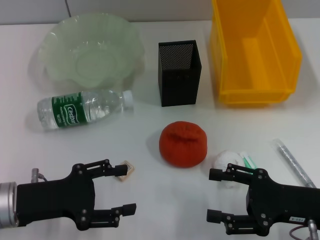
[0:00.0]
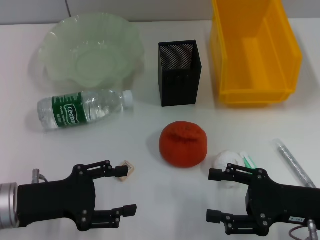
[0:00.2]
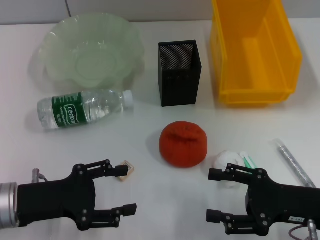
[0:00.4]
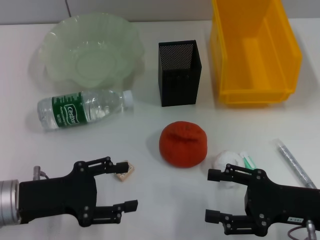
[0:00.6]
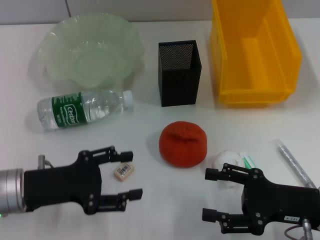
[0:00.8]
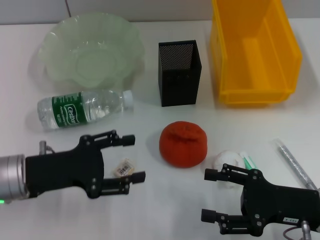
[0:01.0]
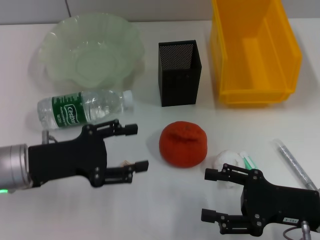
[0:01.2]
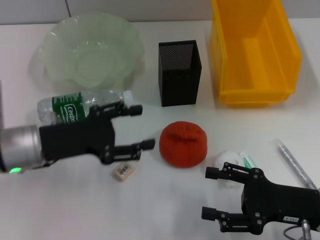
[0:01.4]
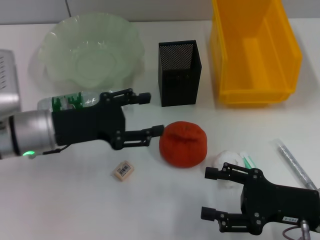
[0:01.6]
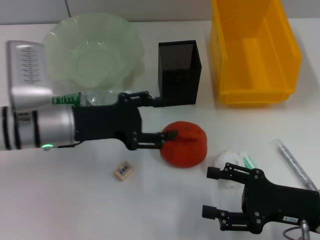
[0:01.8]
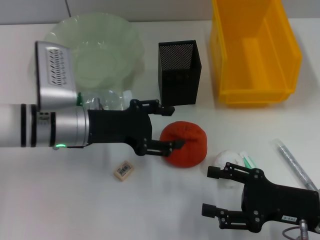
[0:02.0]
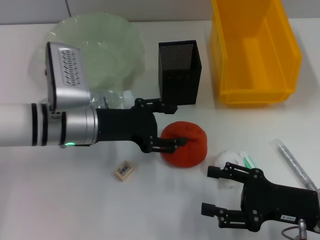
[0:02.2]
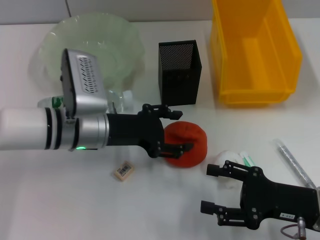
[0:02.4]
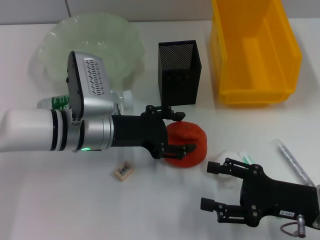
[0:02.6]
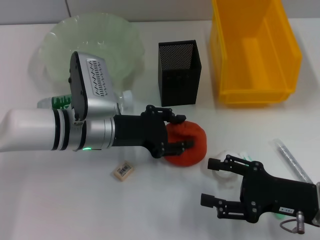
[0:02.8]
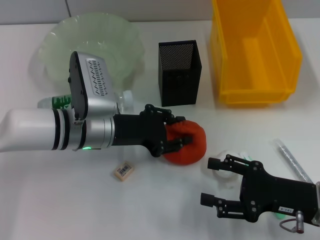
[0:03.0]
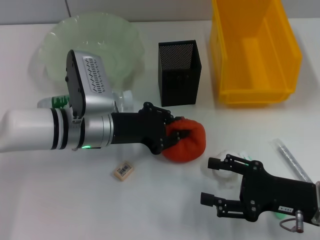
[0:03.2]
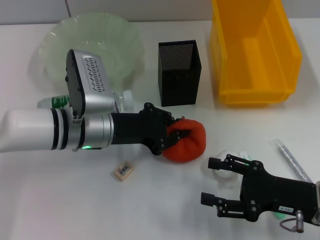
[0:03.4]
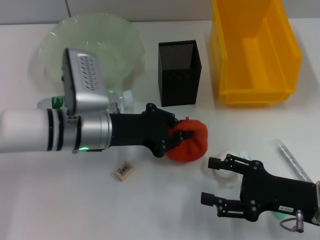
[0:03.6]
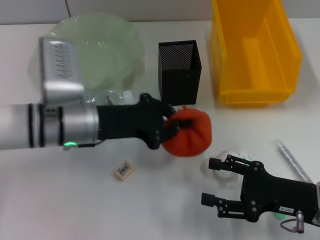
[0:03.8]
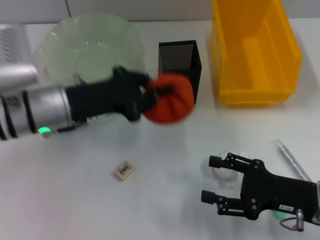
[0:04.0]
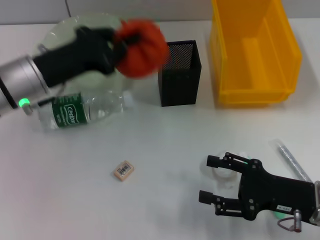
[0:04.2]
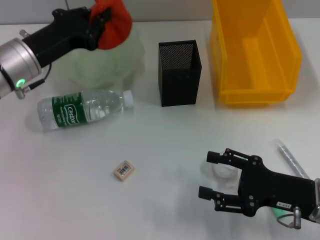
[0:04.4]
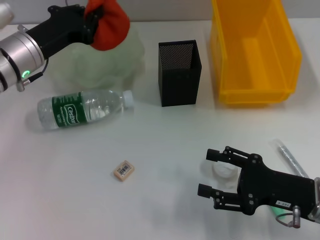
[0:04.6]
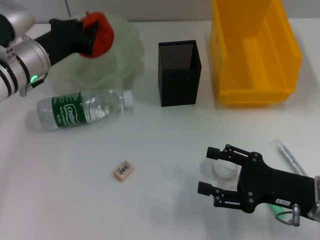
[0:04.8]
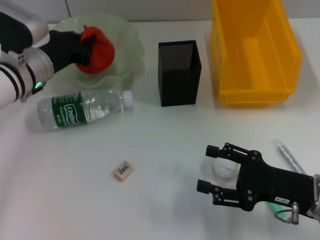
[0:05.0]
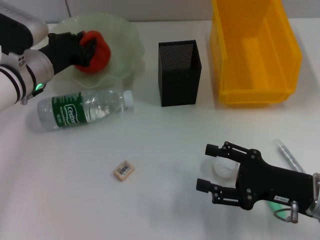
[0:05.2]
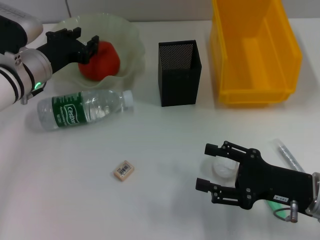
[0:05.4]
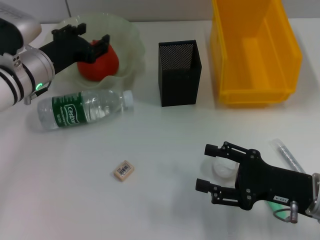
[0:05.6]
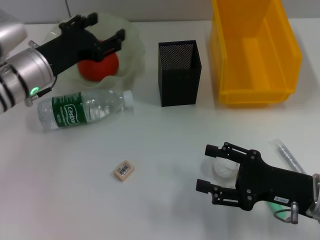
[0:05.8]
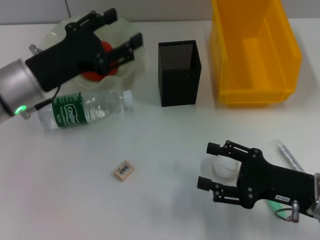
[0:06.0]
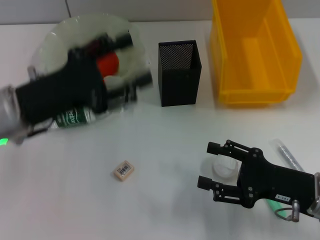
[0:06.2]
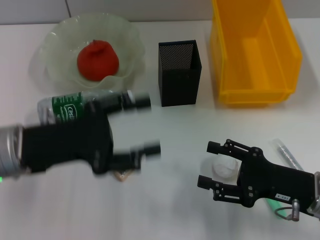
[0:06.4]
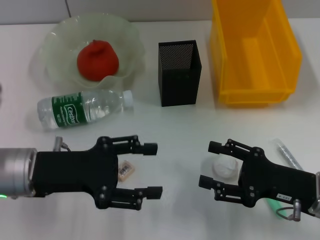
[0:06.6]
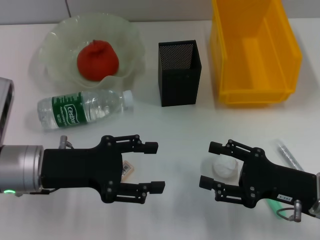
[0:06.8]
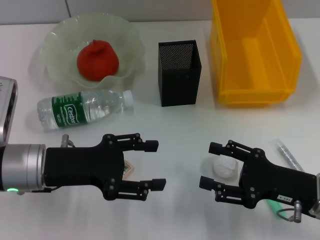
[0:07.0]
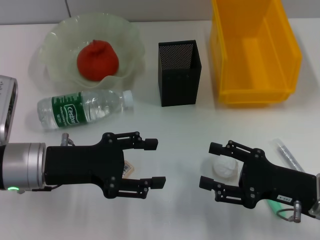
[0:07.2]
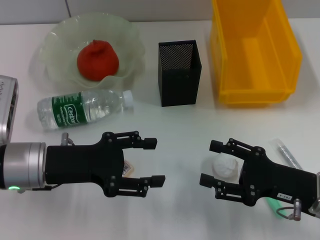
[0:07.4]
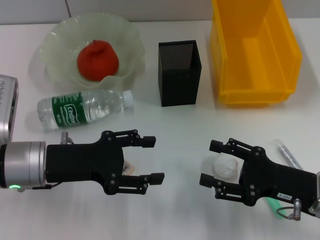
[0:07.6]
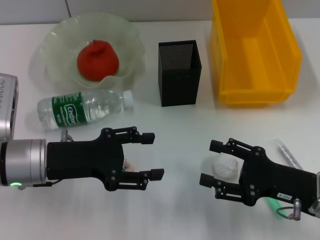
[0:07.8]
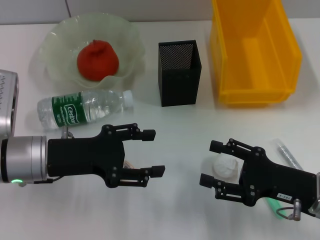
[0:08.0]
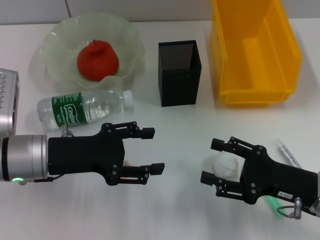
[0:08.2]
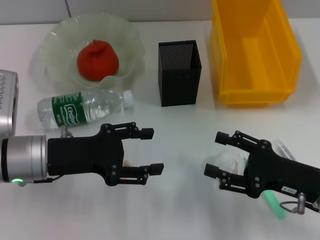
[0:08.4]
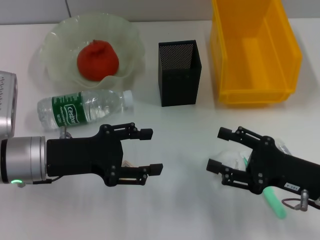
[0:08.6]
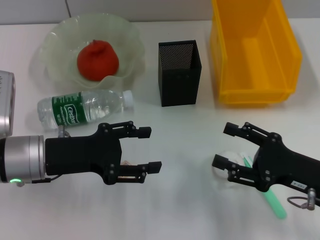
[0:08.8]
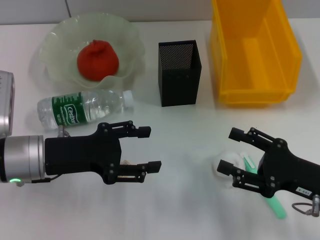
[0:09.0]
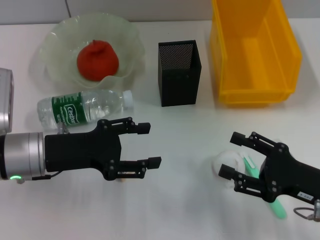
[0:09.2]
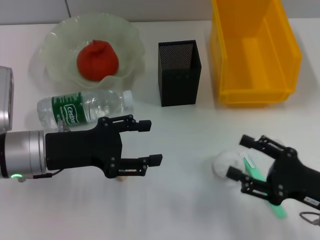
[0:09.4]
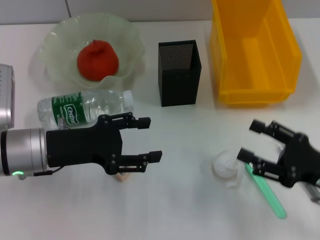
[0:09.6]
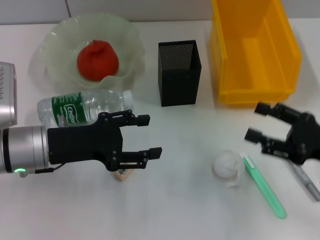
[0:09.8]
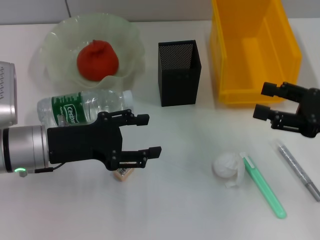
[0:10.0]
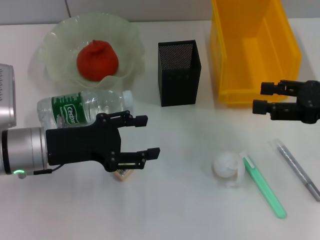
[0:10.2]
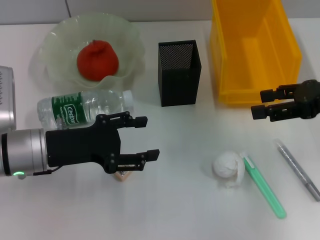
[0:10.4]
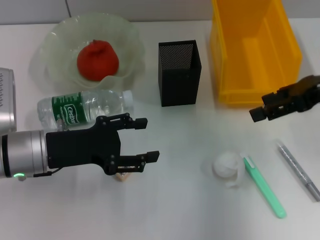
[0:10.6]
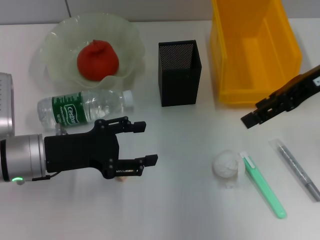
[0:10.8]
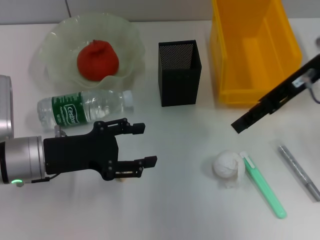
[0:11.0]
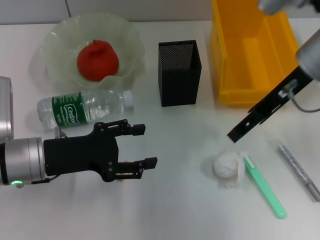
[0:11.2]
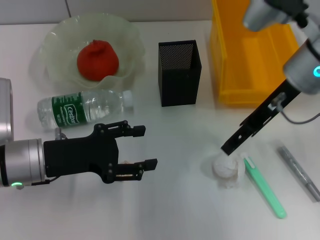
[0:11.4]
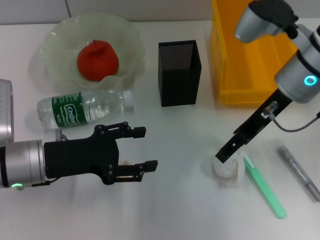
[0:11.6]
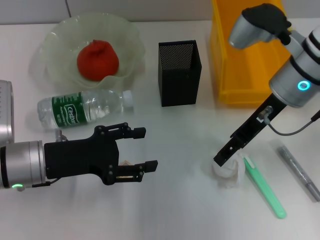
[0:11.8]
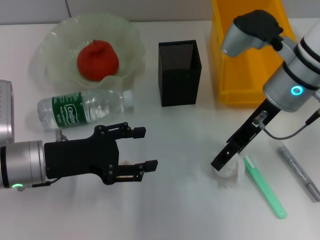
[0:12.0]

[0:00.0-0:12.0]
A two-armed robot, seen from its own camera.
Step, 0:00.0 to 0:03.2: Grab the orange with the left hand.
Step, 0:03.4 to 0:05.4: Place the orange into the fruit bowl with the left hand.
0:00.0 to 0:01.6: The left gripper moves forward, about 10 cm.
0:01.6 to 0:03.0: The left gripper shifts some 5 cm to the right.
0:03.0 to 0:04.4: The left gripper travels to the left and upward by approximately 10 cm, and closes up.
0:04.4 to 0:06.0: The left gripper opens.
0:06.0 to 0:07.6: The left gripper moves backward, about 5 cm.
0:07.6 to 0:09.0: The grippers make only small movements.
0:09.0 to 0:10.4: The right gripper shifts approximately 15 cm upward and forward.
0:10.4 to 0:12.0: The right gripper is displaced to the left by about 15 cm.

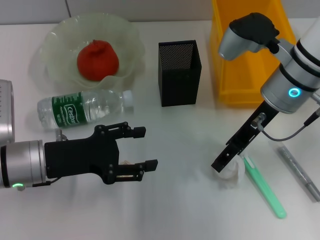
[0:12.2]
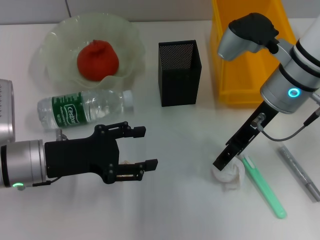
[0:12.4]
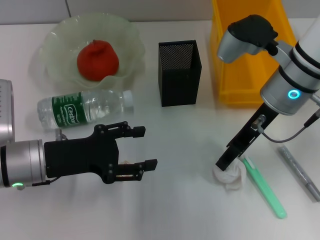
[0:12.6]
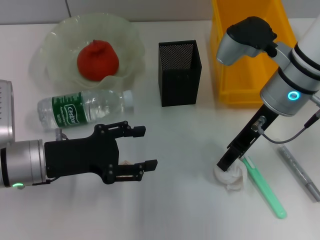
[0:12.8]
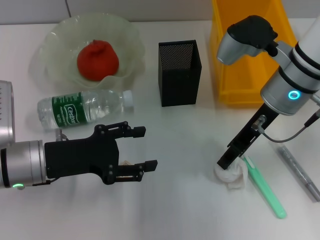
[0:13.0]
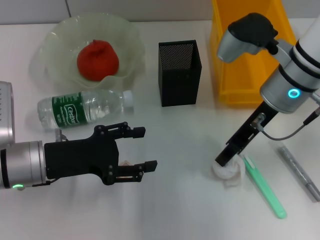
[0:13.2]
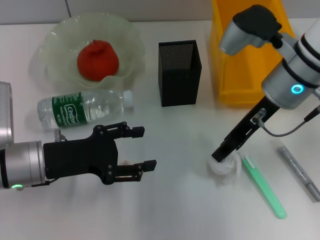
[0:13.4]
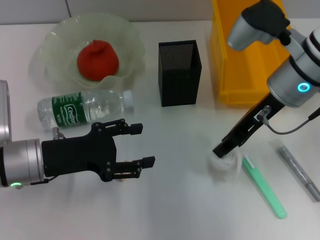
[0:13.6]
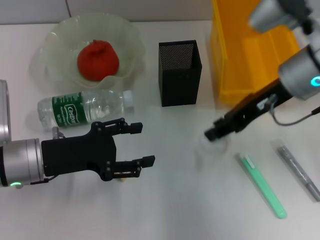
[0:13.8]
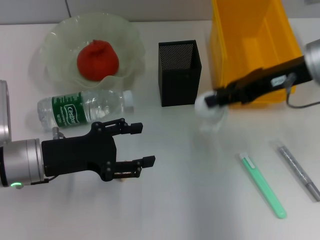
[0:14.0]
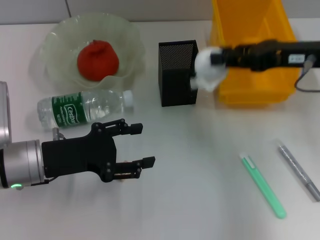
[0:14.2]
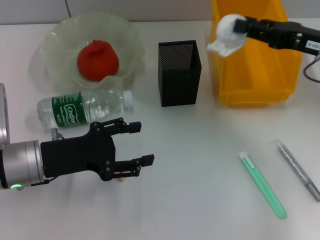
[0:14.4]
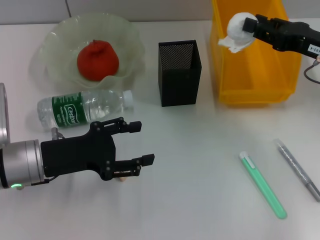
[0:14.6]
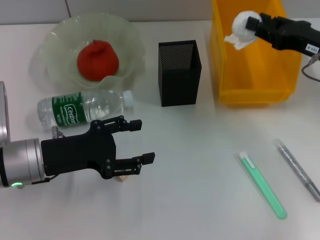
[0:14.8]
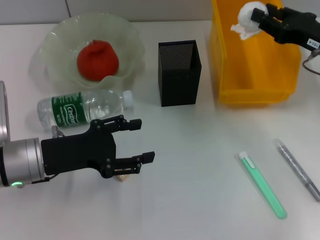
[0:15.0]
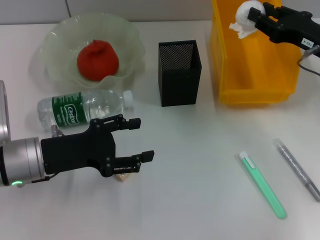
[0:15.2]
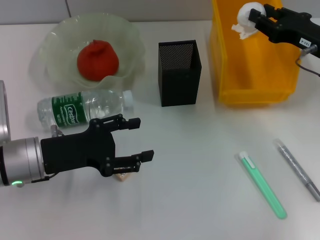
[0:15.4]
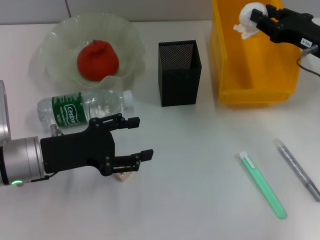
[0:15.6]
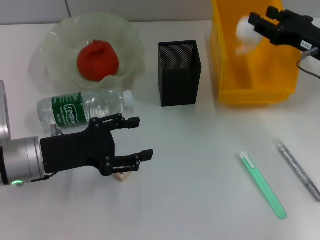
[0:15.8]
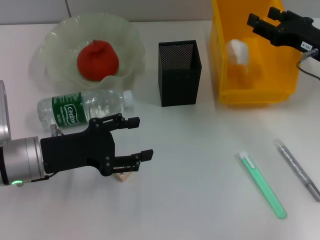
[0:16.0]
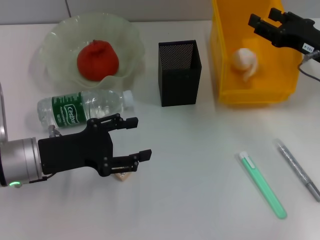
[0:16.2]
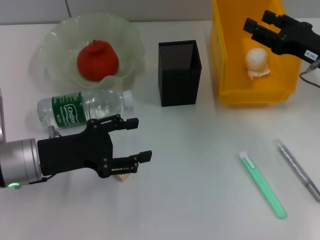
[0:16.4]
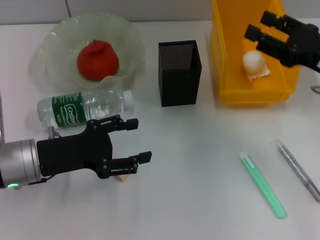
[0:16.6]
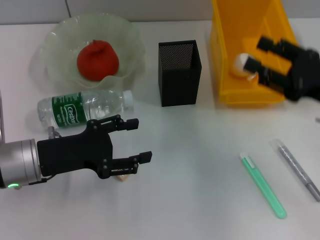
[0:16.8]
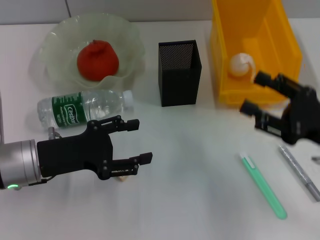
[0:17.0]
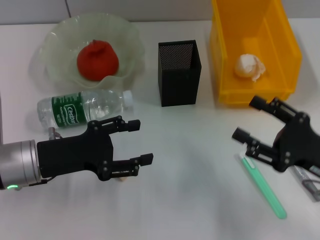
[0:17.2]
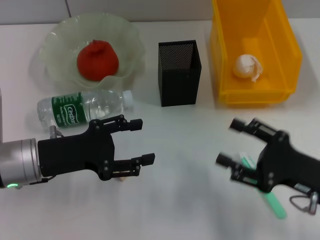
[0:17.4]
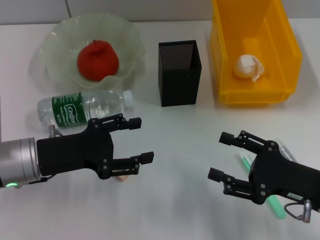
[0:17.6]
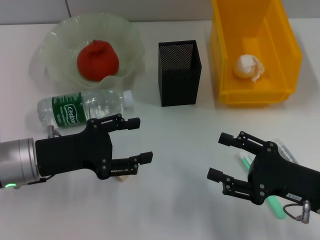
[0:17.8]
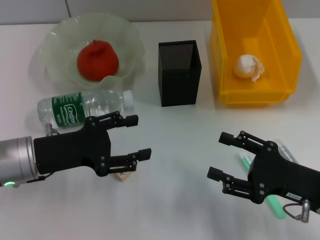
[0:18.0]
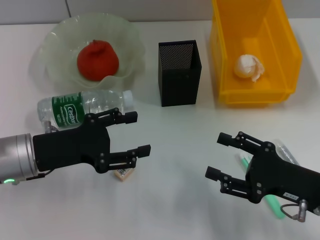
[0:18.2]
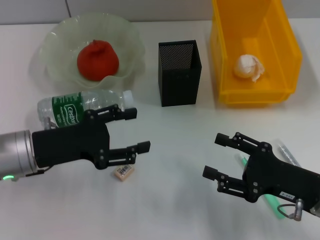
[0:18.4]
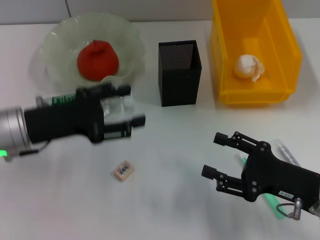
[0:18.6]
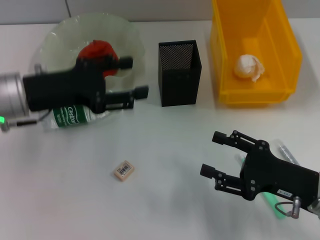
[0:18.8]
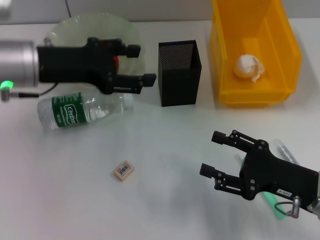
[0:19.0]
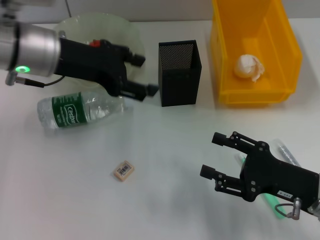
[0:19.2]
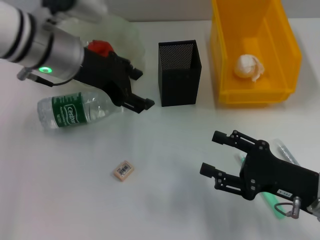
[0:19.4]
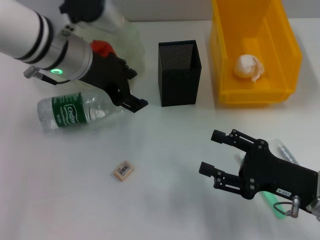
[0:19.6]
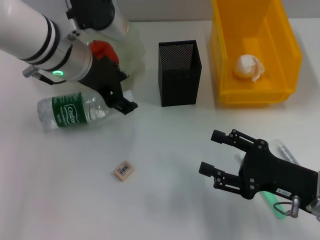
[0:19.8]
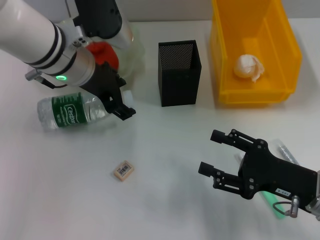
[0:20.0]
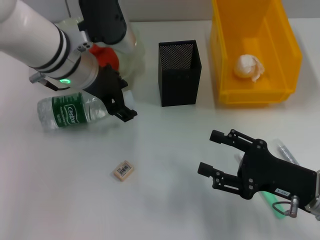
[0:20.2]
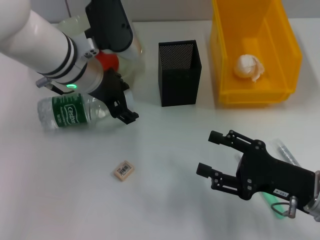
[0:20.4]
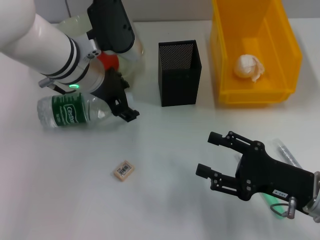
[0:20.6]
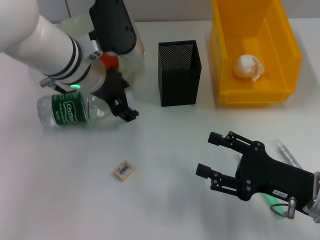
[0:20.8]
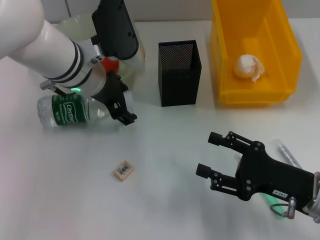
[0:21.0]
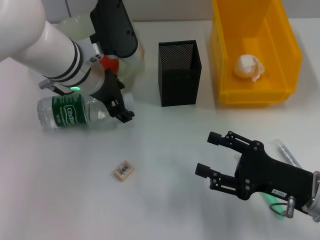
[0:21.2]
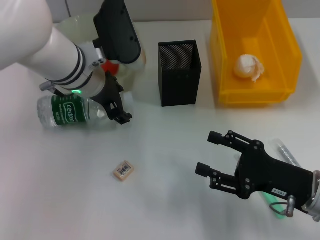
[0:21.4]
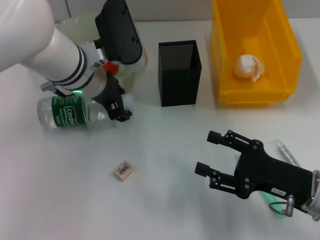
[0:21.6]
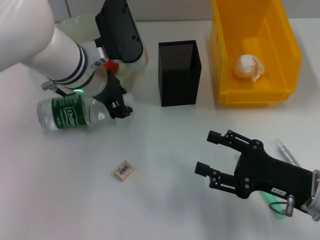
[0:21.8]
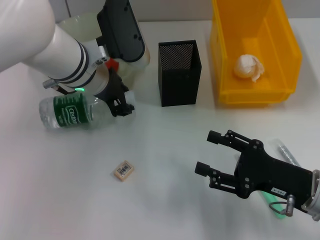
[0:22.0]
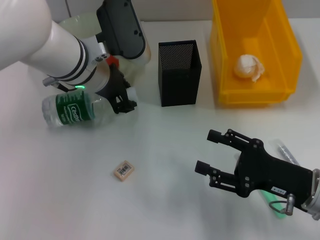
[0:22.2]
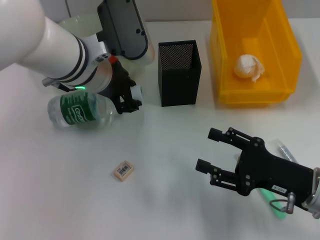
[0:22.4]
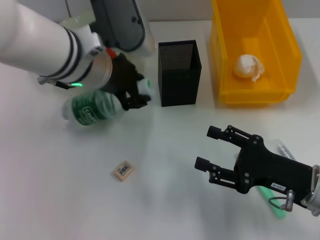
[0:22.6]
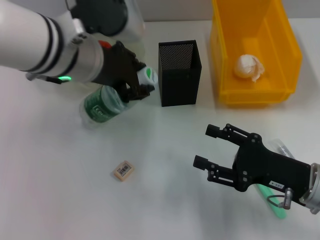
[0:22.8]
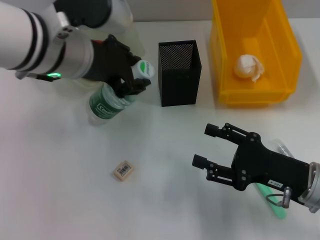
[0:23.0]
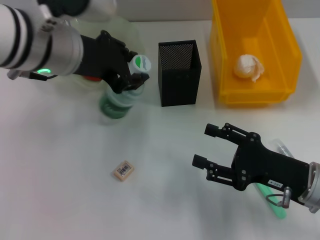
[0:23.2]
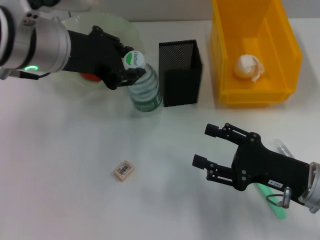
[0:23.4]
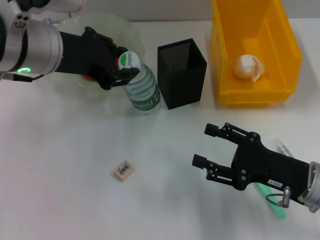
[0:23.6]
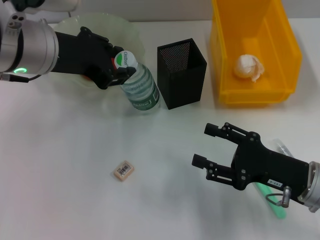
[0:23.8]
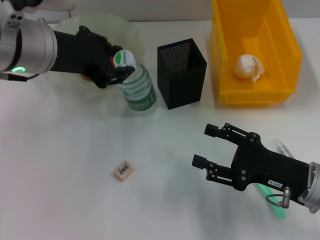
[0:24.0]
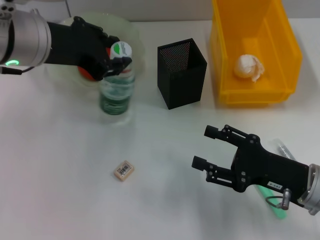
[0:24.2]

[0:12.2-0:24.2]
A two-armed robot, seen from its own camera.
Step, 0:13.0 to 0:16.6: Place the paper ball into the trash can with the right hand.
Step, 0:17.0 to 0:21.6: Grab the water bottle with the left hand.
0:12.2 to 0:13.8: The right gripper closes.
0:13.8 to 0:15.2: The right gripper heads to the right and downward, covering about 10 cm.
0:15.2 to 0:16.6: The right gripper heads backward, covering some 5 cm, and opens.
0:16.6 to 0:18.2: The right gripper heads backward and downward, covering some 15 cm.
0:18.2 to 0:19.8: The left gripper moves forward, upward and to the right, approximately 20 cm.
0:19.8 to 0:21.2: The grippers move only a little.
0:21.2 to 0:22.6: The left gripper changes place by approximately 5 cm, and closes its fingers.
0:22.6 to 0:24.2: The left gripper moves to the left, about 5 cm.
